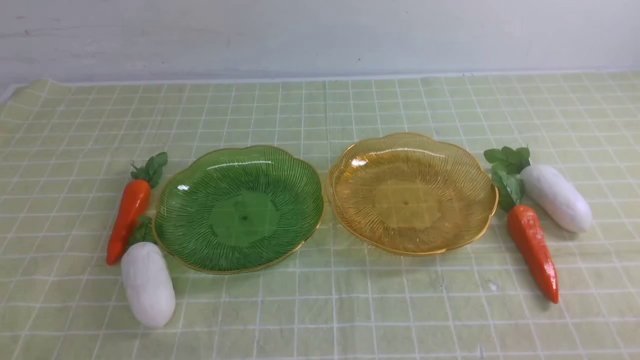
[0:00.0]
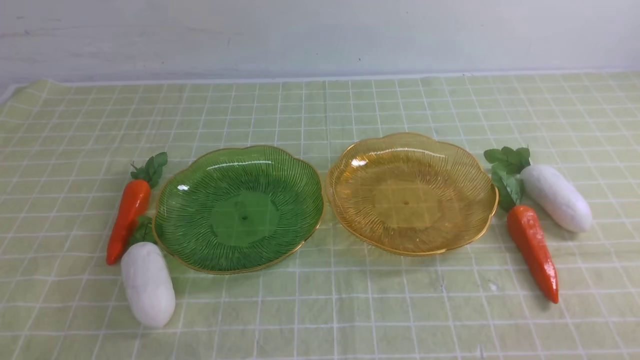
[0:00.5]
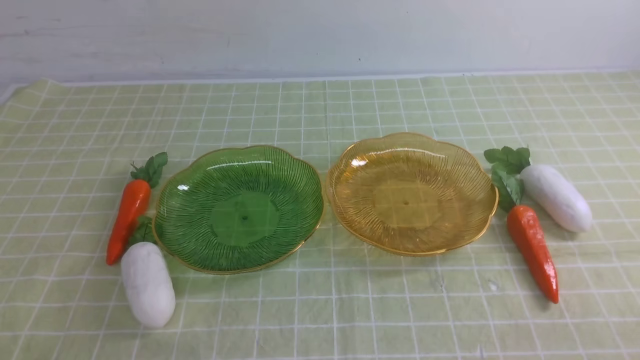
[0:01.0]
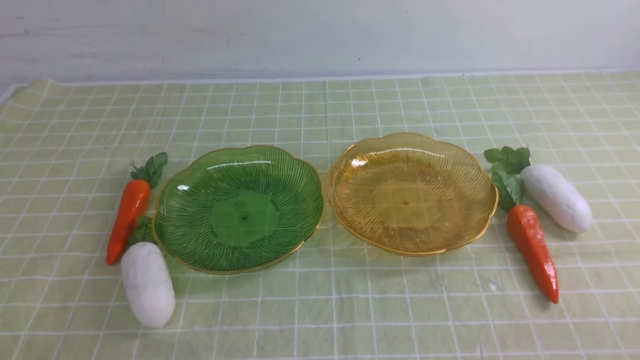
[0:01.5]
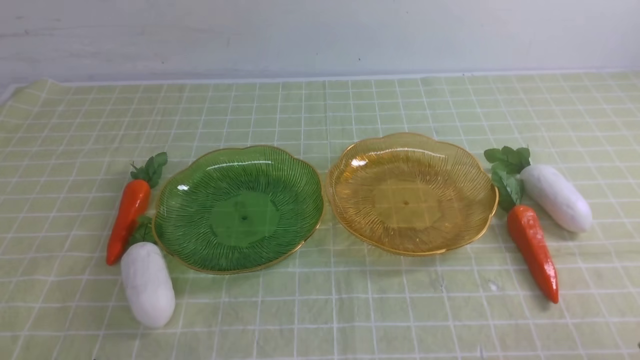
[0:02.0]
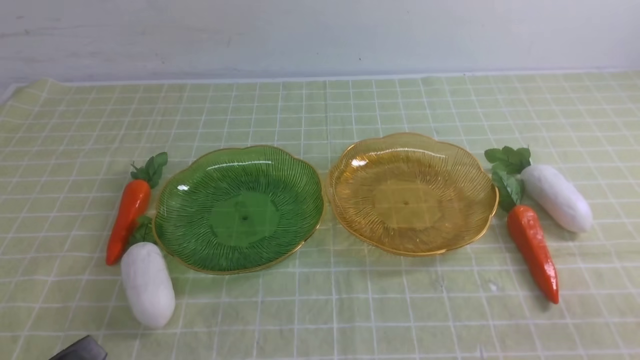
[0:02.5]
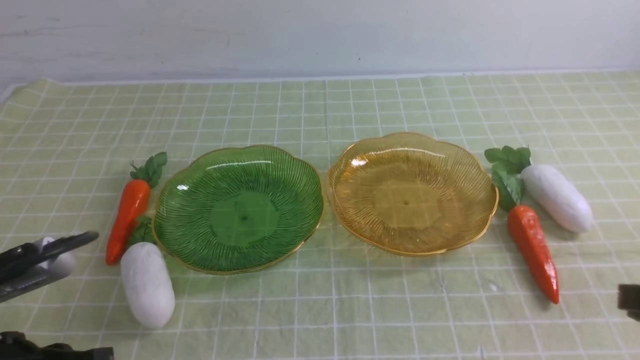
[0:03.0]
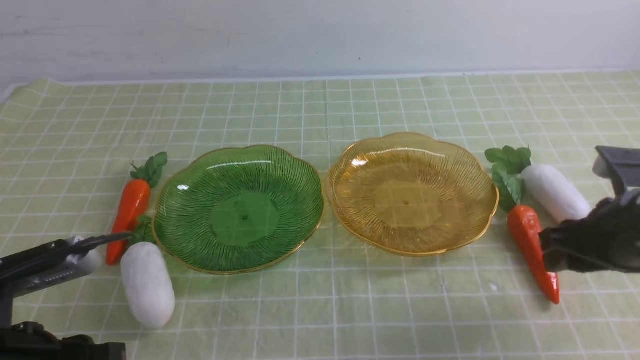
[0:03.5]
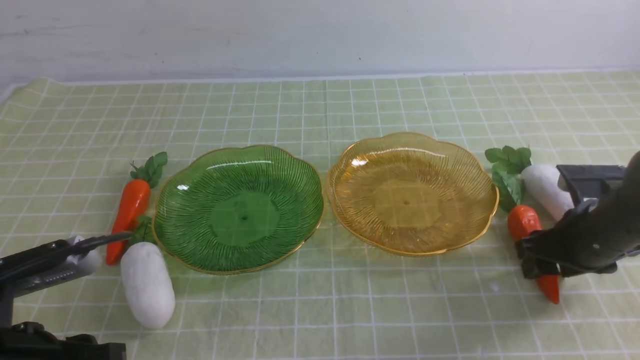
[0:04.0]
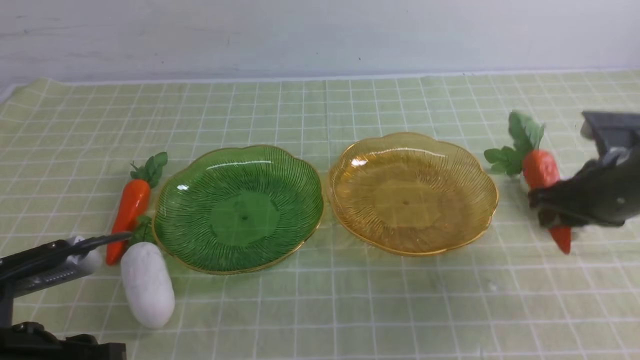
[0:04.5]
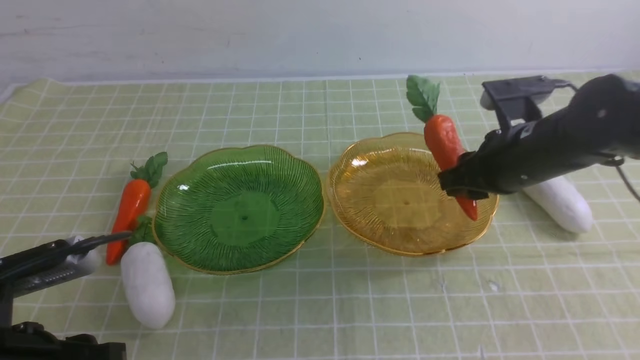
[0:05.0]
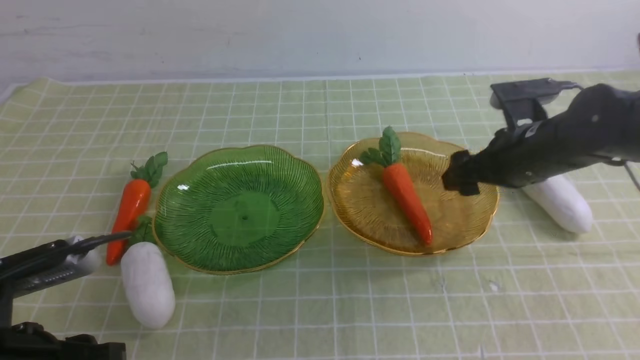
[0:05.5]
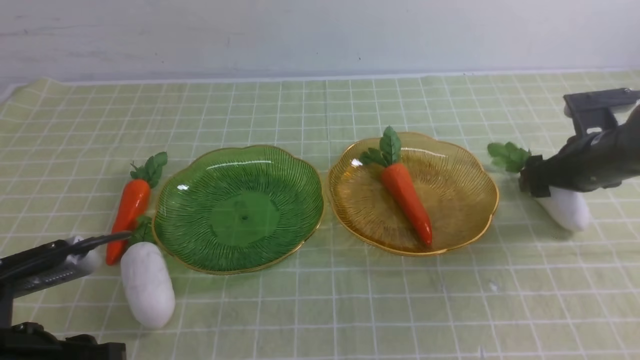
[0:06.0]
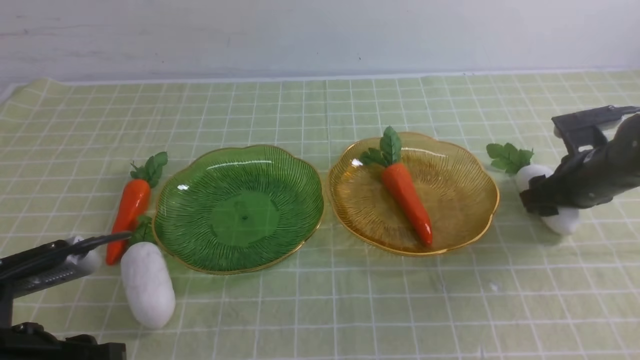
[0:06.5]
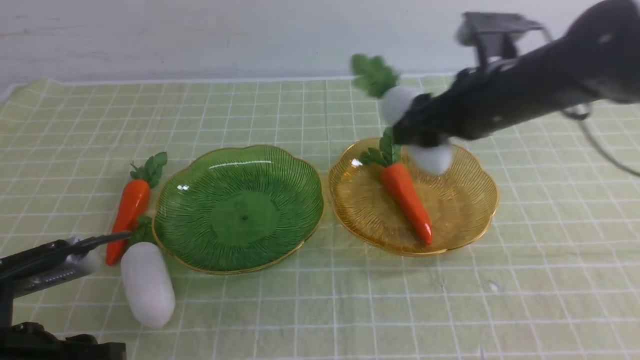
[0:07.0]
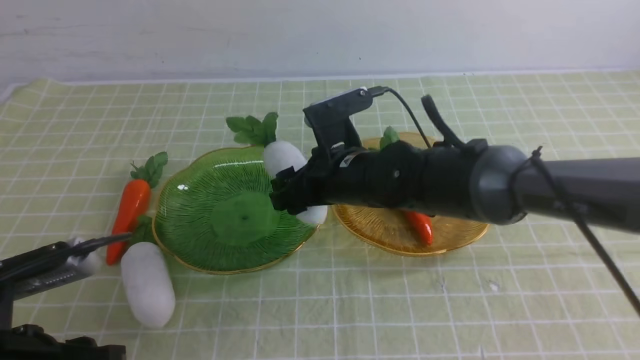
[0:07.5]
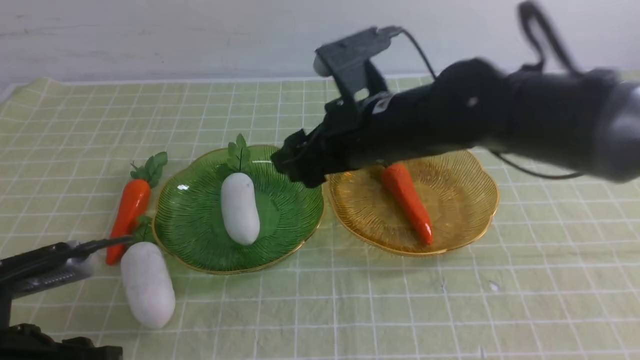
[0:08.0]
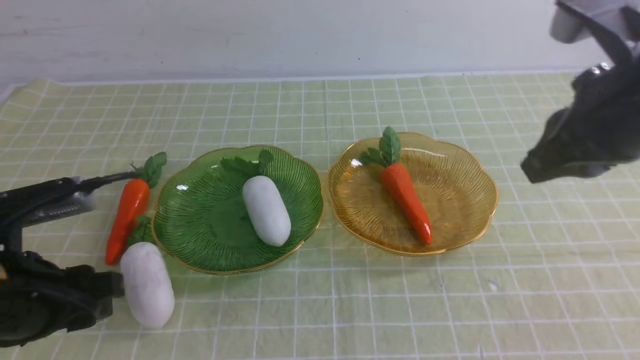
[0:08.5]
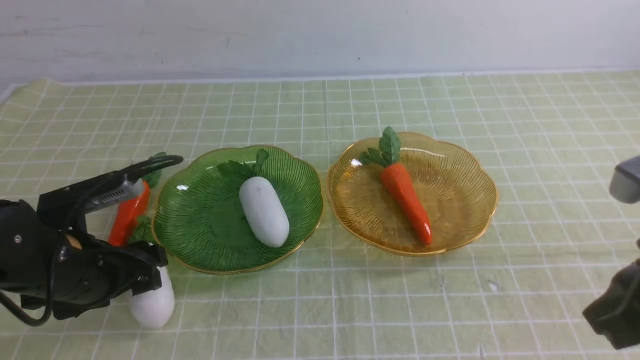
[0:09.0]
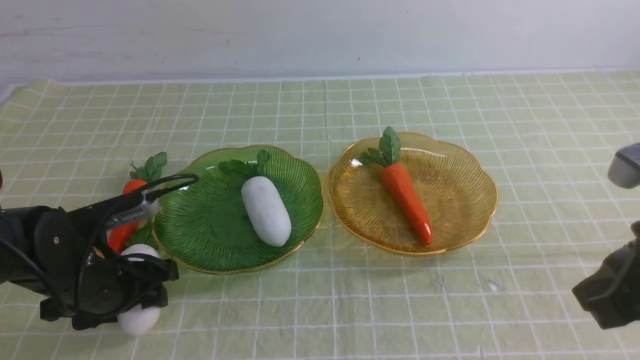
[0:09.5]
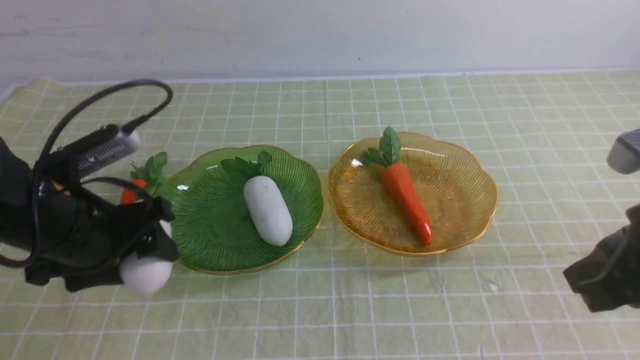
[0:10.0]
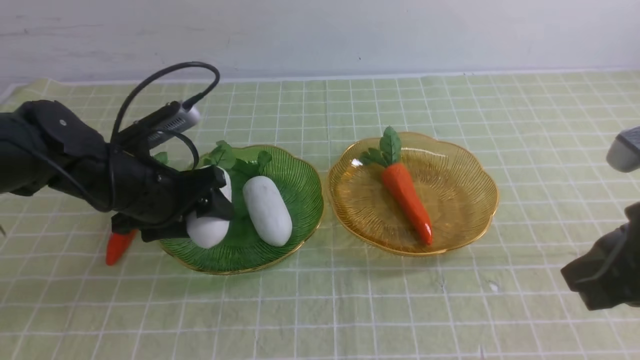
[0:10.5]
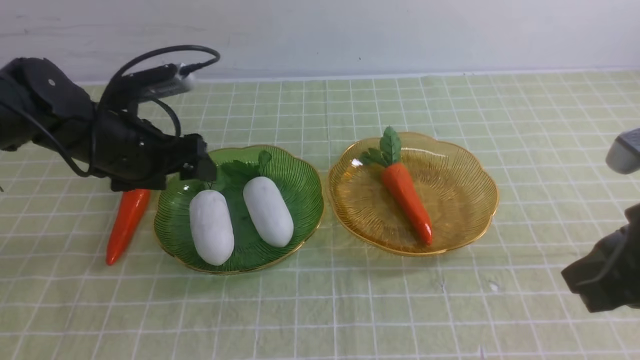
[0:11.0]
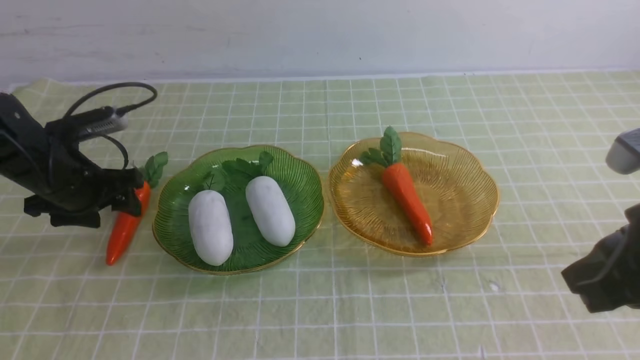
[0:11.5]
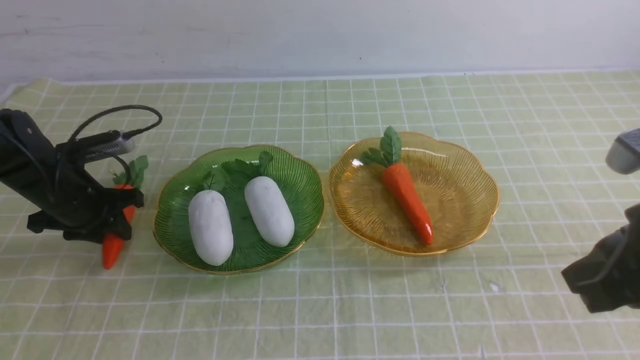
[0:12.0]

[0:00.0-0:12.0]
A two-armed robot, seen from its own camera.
Step, 0:00.0 to 0:05.0: use the right arm to grab a carrot and put it into the right plate.
Step, 0:06.0 to 0:07.5: use the right arm to grab a radish and put it into the left plate.
Step, 0:08.0 to 0:10.5: use the left arm to grab a radish and put it into the left plate.
0:02.0 to 0:04.0: The right gripper shifts some 25 cm forward, and opens, while the left gripper moves forward and upward, approximately 10 cm, and opens up.
0:04.0 to 0:06.0: The right gripper travels forward by some 10 cm, reaches about 10 cm to the left, then returns, and opens its fingers.
0:06.0 to 0:08.0: The right gripper travels to the left and upward by approximately 30 cm.
0:08.0 to 0:10.0: The left gripper is displaced forward by approximately 15 cm. Meanwhile the right gripper shifts some 25 cm to the right and backward, and closes up.
0:10.0 to 0:12.0: The left gripper shifts about 15 cm forward, to the left and downward.

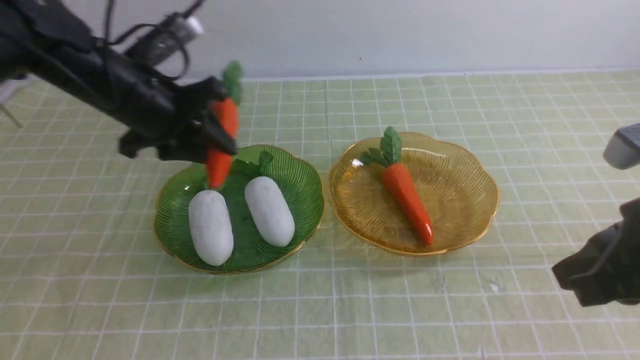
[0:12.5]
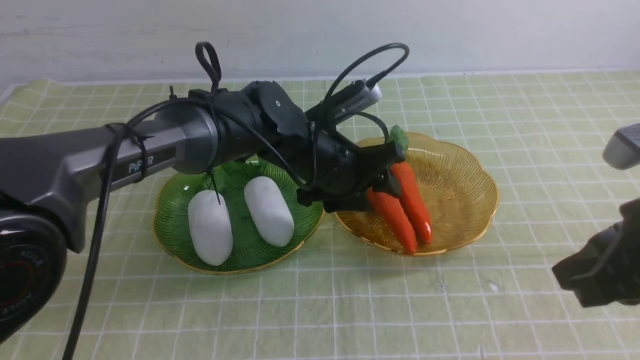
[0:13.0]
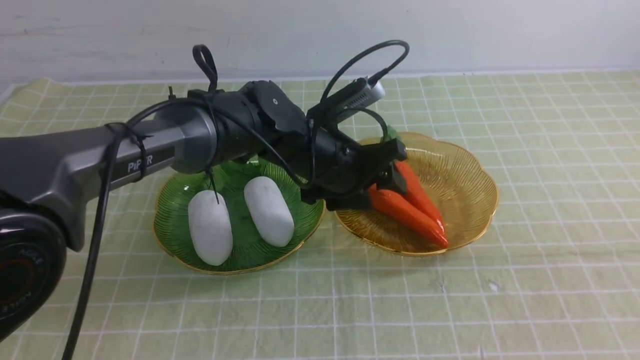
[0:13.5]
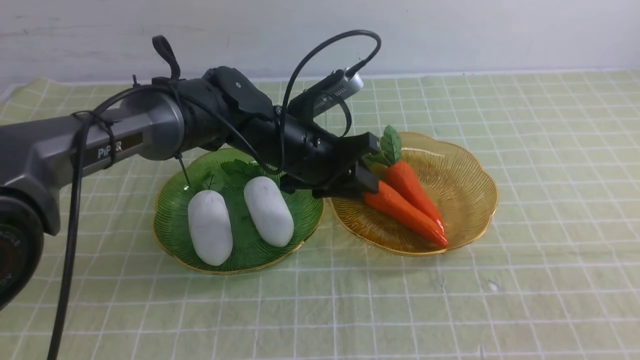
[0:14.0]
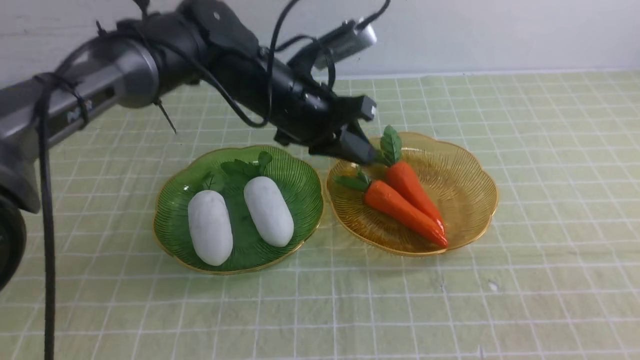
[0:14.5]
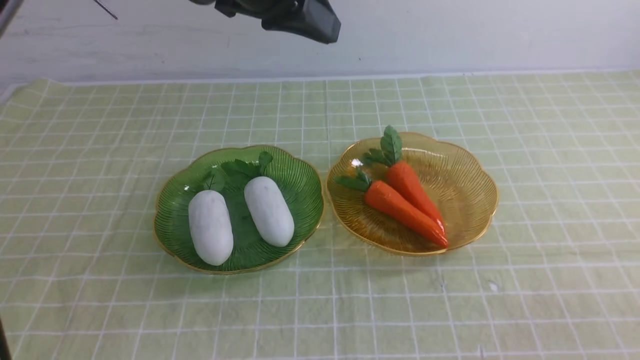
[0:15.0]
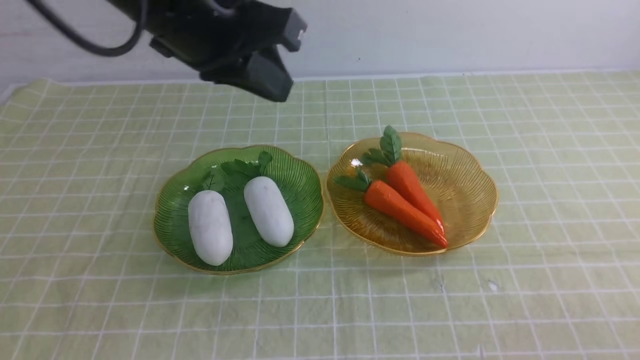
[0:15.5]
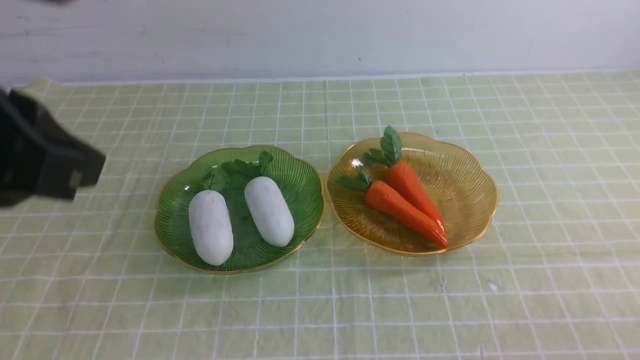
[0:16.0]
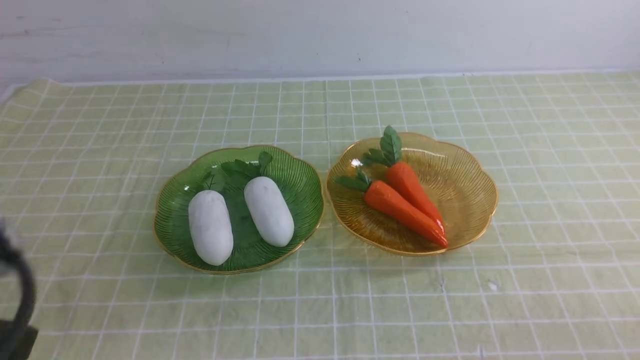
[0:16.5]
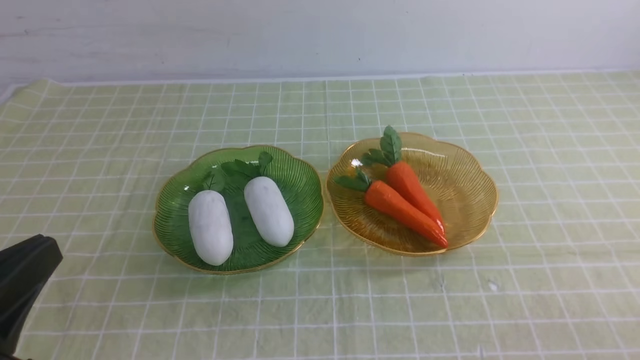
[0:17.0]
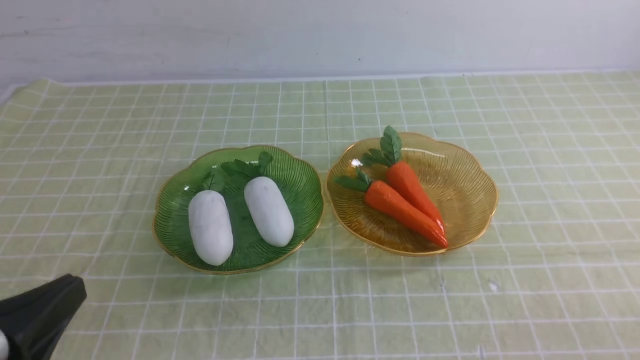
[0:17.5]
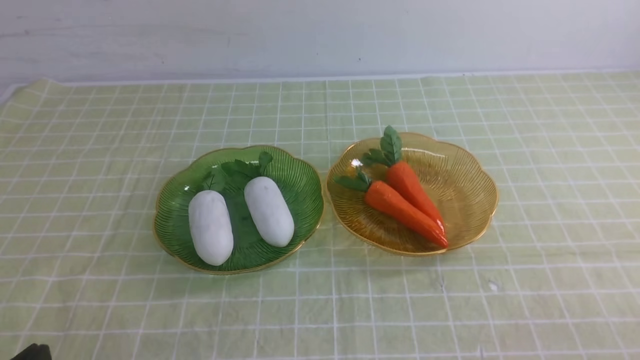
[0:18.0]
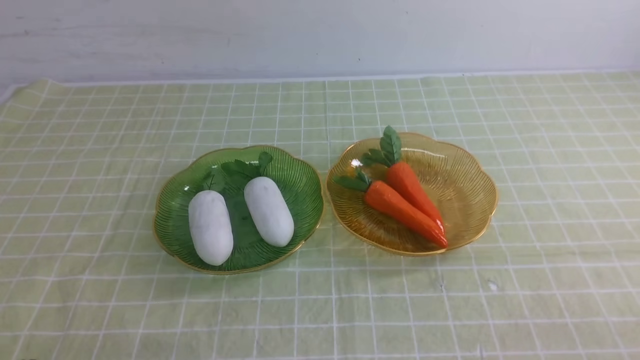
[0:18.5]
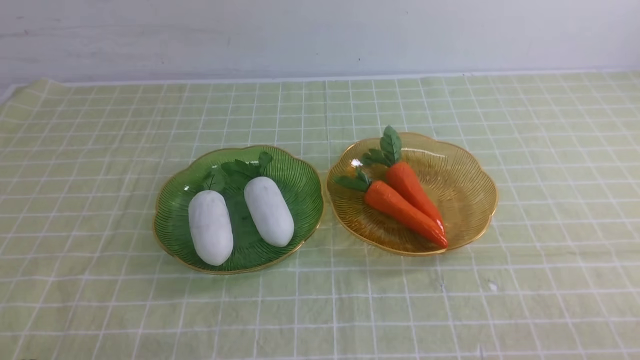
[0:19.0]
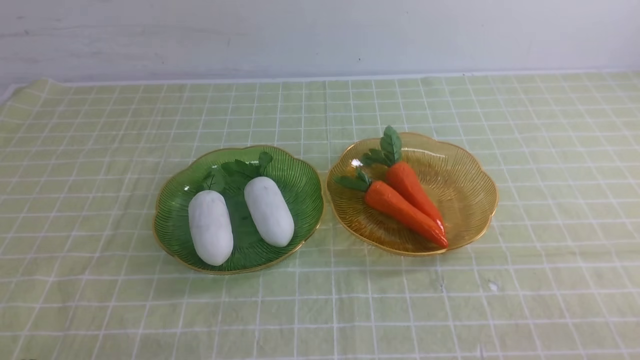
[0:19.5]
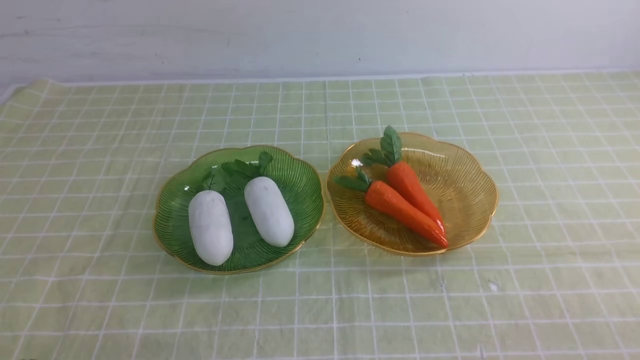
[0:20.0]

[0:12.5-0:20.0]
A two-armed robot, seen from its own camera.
0:12.5 to 0:14.5: The left gripper is displaced to the right by roughly 15 cm, and closes its fingers; the right gripper heads backward, covering approximately 15 cm.
0:14.5 to 0:16.5: The right gripper travels downward by some 10 cm. Meanwhile the left gripper moves backward and to the left, about 35 cm.
0:16.5 to 0:18.0: The left gripper goes about 15 cm downward.
